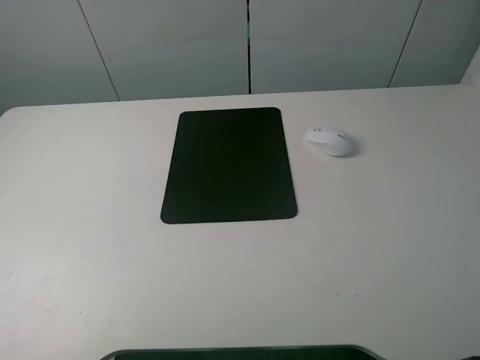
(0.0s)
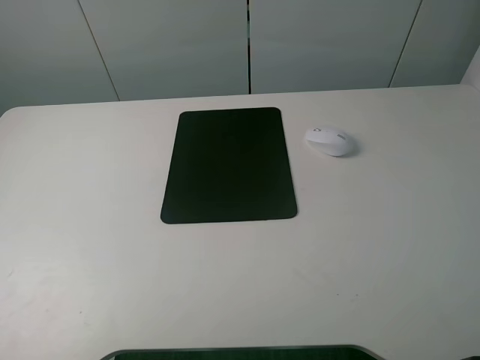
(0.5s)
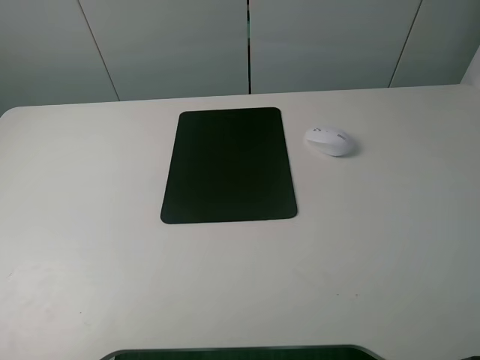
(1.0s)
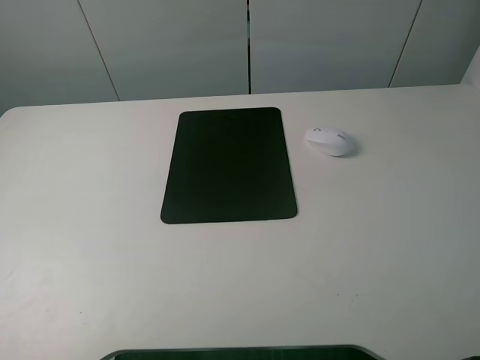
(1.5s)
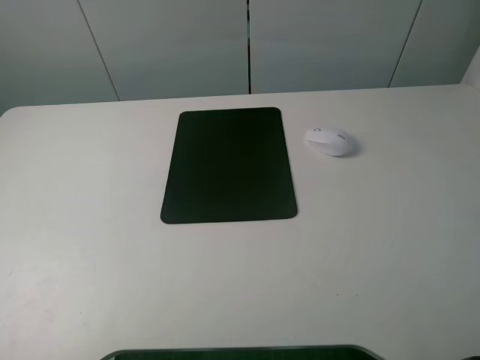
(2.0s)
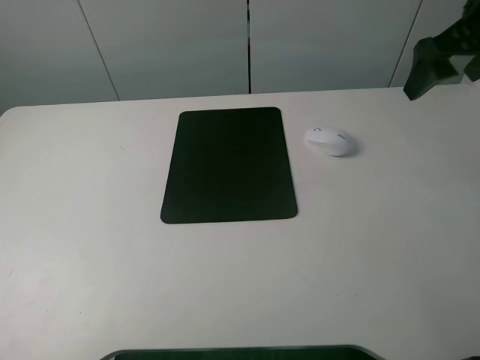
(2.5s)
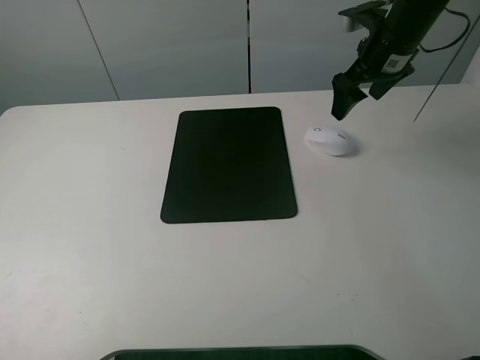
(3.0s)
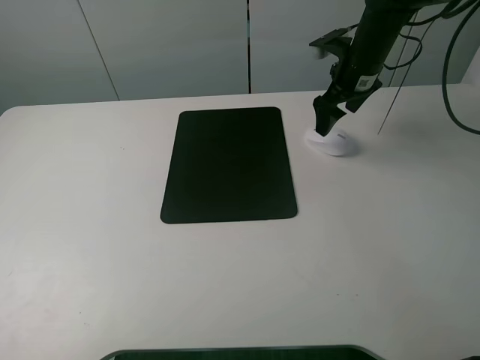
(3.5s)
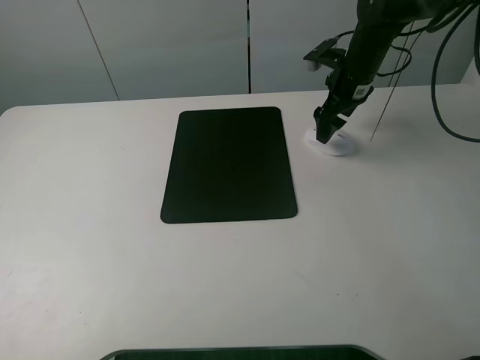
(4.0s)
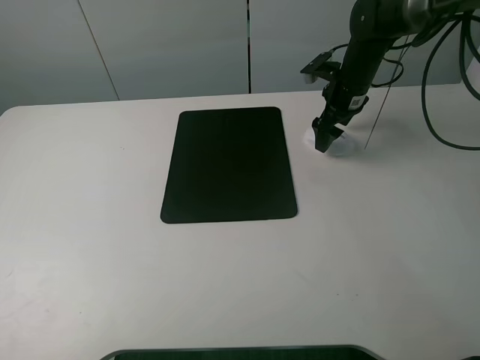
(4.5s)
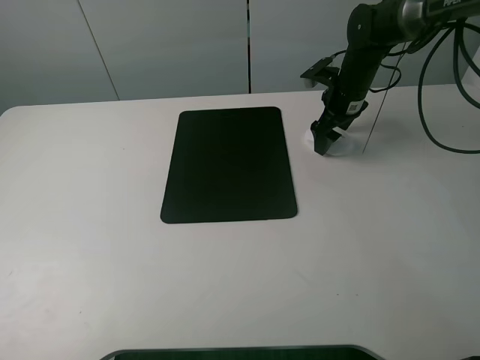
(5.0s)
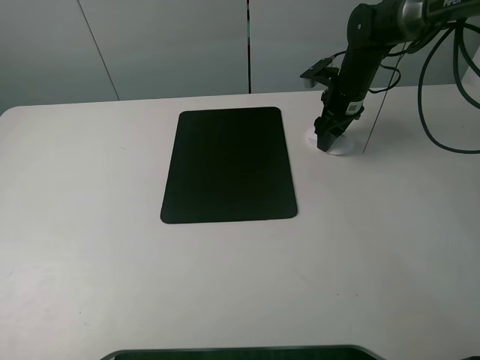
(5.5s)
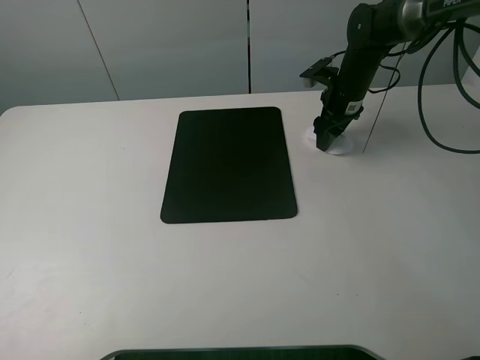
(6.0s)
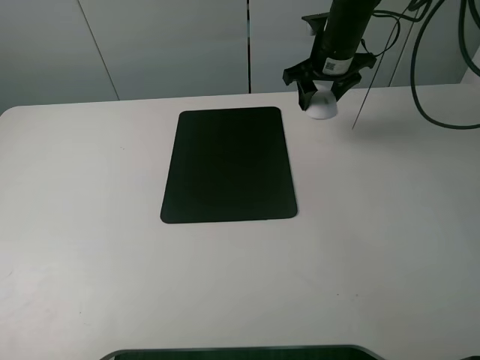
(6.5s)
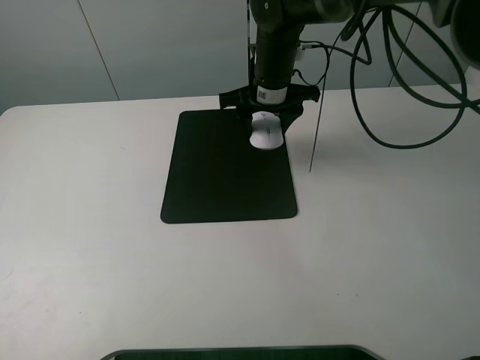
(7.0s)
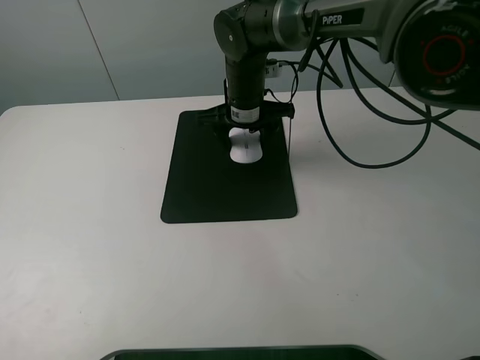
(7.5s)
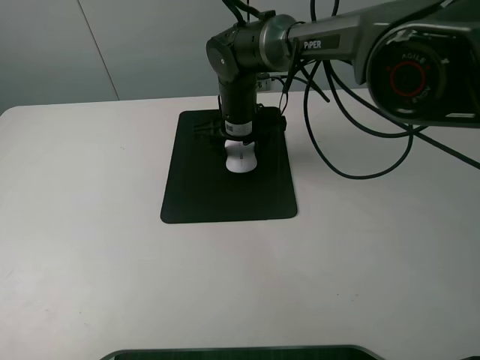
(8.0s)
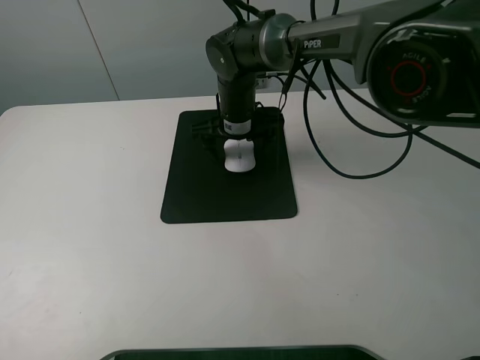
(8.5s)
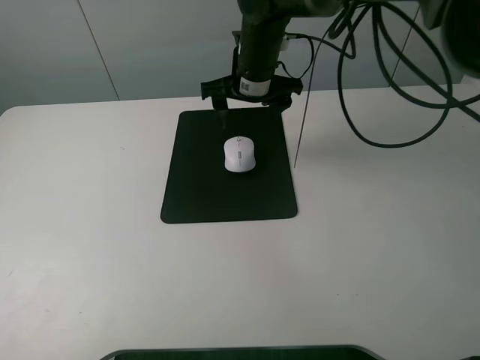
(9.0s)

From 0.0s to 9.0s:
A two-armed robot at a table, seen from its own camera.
Step, from 0.0s to 6.0s: Grasp the mouse with the right gripper.
Step, from 6.5s to 8.5s: Place the mouse on the mouse mat with the right gripper.
From 2.0s to 4.5s: The right gripper moves forward and downward, about 35 cm.
From 4.5s to 7.0s: The right gripper goes some 15 cm to the left, and closes its fingers.
From 7.0s to 9.0s: The right gripper travels downward and back again, approximately 5 cm each way, and opens its fingers.

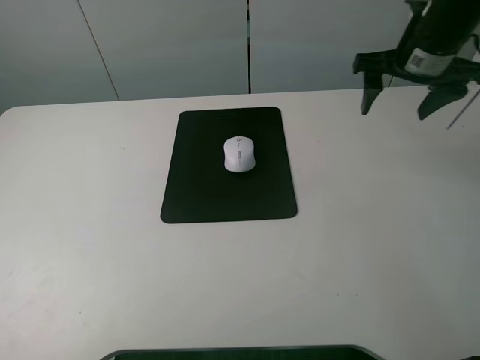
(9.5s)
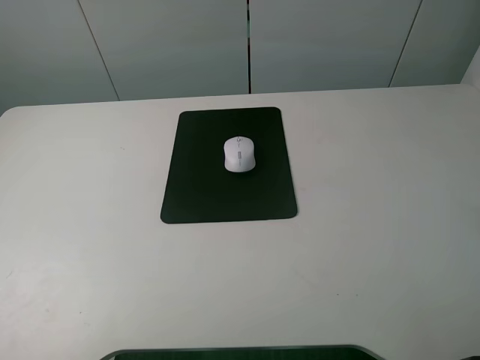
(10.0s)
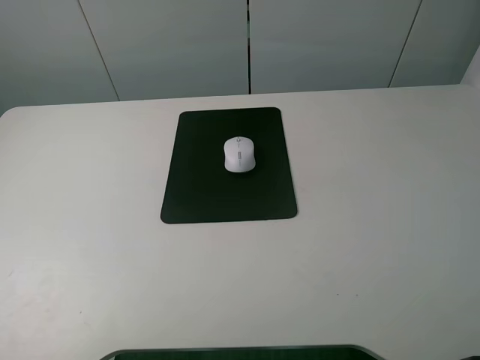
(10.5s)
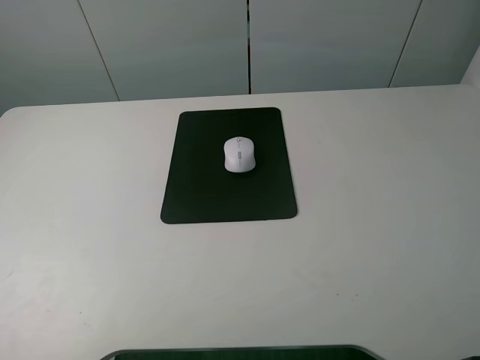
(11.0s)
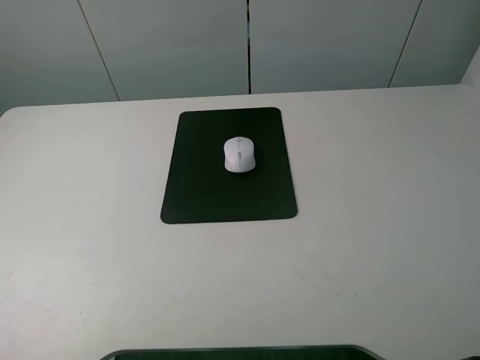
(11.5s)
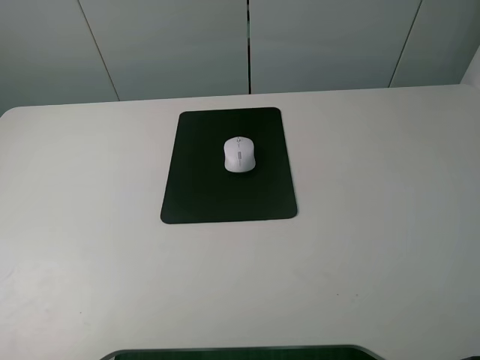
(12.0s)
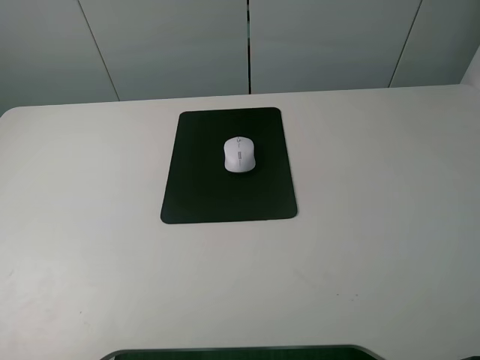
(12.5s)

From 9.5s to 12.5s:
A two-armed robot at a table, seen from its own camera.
From 9.5s to 11.0s: The right gripper travels backward by roughly 35 cm.
From 11.0s to 12.5s: The two grippers keep their place.
